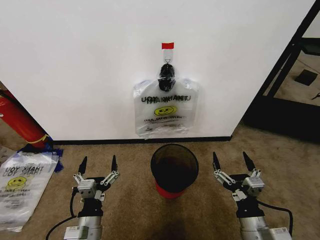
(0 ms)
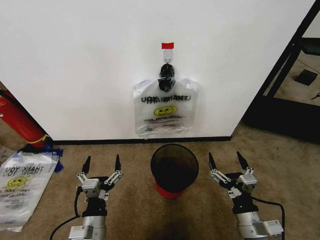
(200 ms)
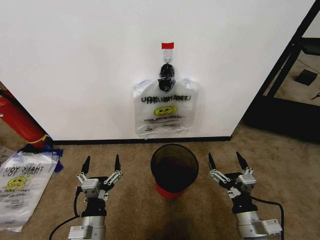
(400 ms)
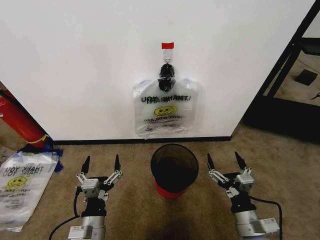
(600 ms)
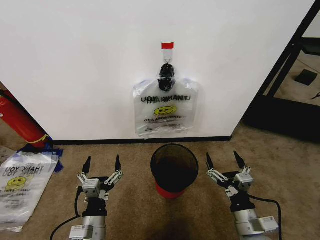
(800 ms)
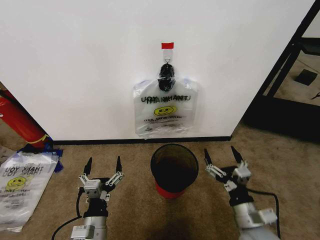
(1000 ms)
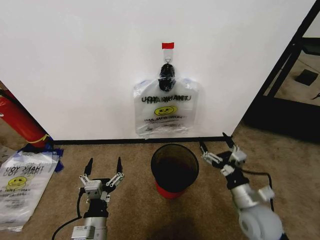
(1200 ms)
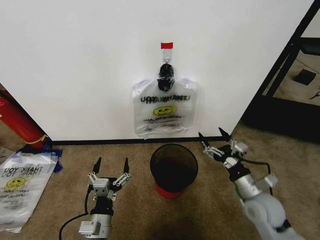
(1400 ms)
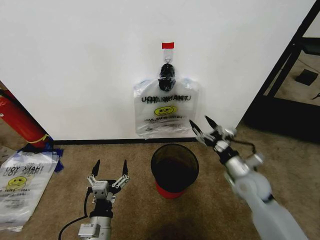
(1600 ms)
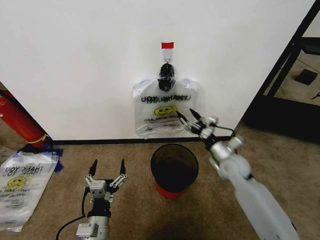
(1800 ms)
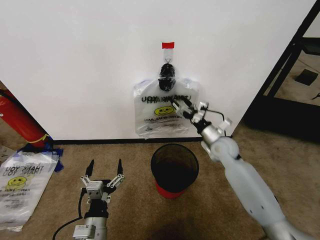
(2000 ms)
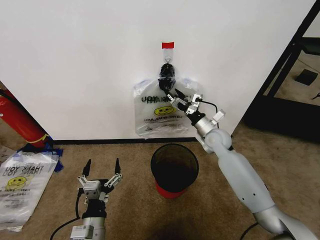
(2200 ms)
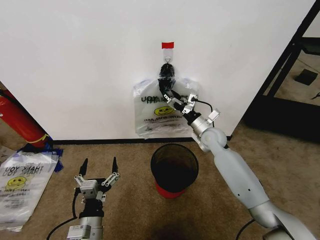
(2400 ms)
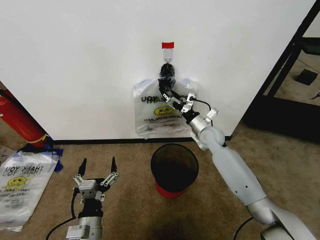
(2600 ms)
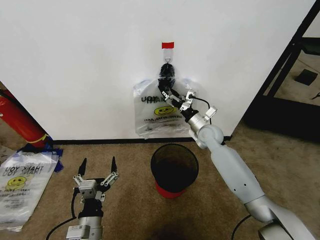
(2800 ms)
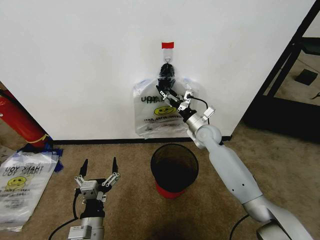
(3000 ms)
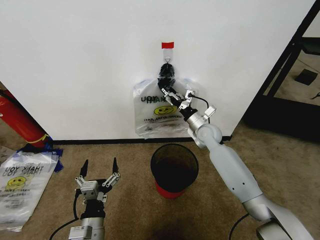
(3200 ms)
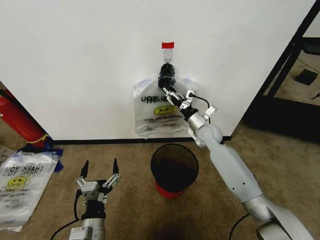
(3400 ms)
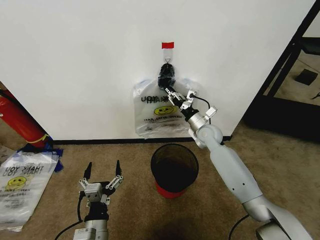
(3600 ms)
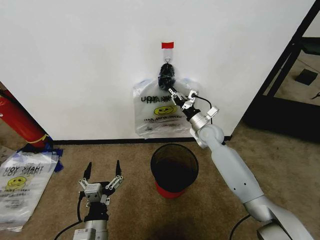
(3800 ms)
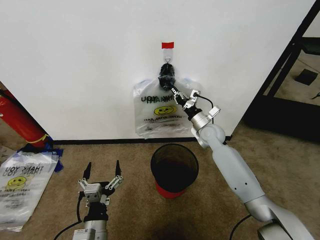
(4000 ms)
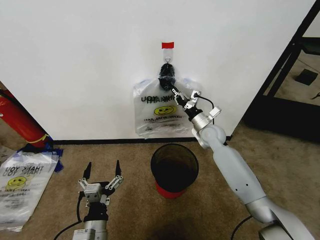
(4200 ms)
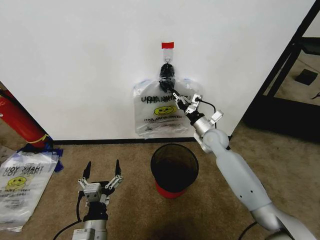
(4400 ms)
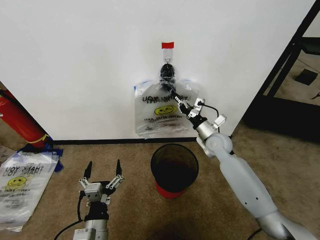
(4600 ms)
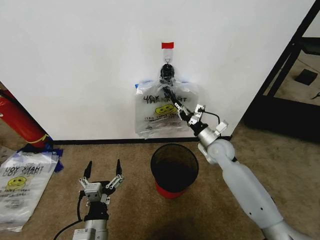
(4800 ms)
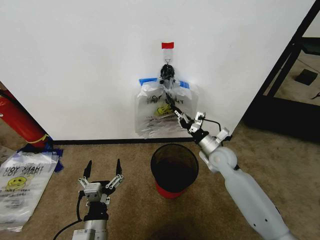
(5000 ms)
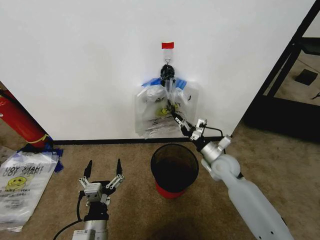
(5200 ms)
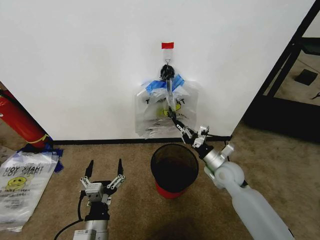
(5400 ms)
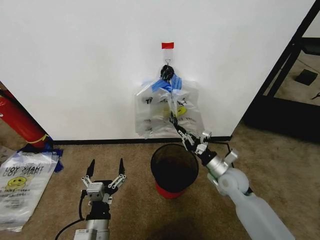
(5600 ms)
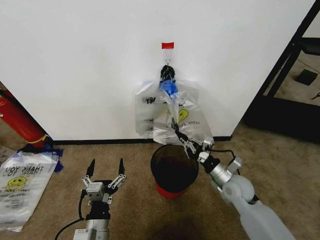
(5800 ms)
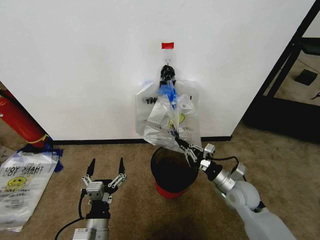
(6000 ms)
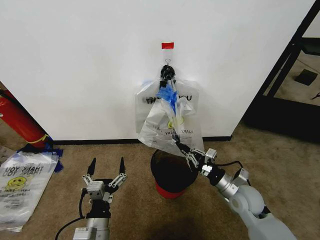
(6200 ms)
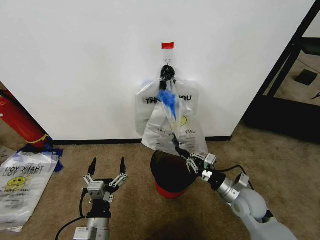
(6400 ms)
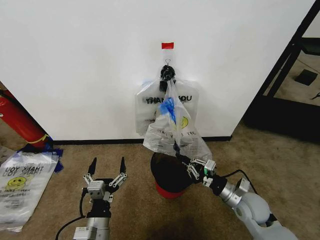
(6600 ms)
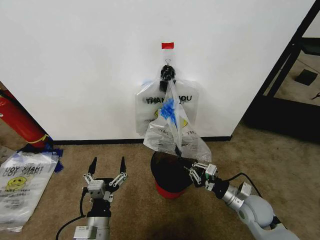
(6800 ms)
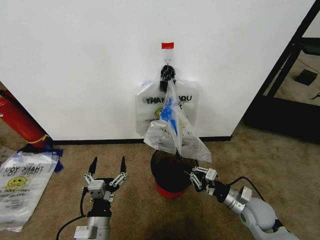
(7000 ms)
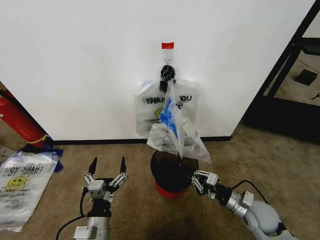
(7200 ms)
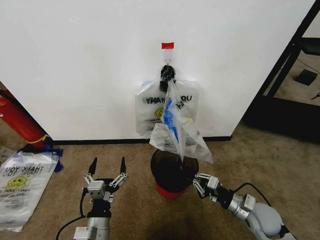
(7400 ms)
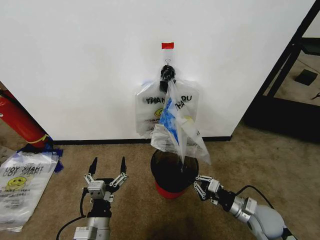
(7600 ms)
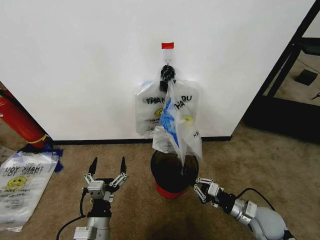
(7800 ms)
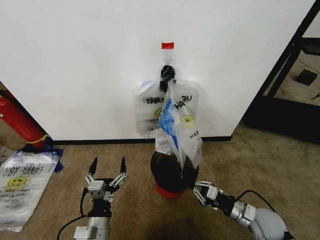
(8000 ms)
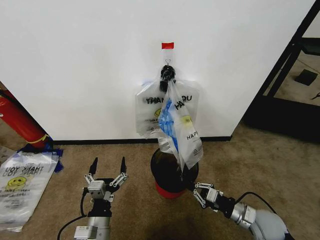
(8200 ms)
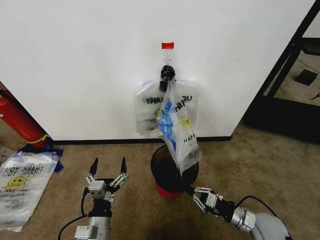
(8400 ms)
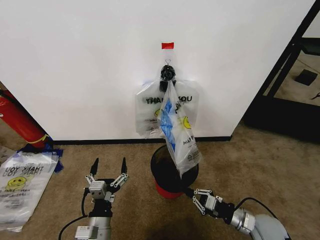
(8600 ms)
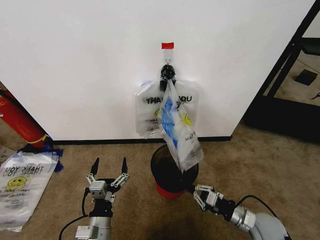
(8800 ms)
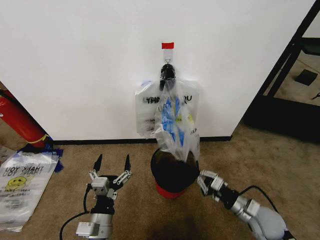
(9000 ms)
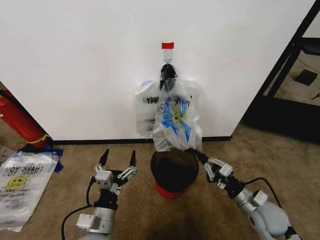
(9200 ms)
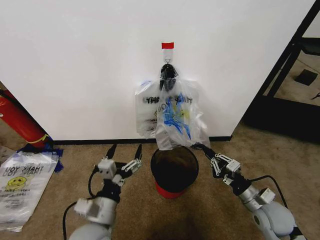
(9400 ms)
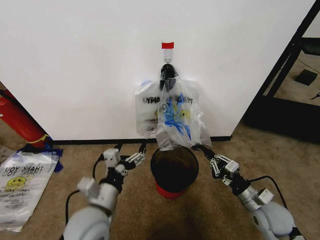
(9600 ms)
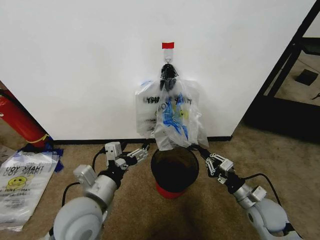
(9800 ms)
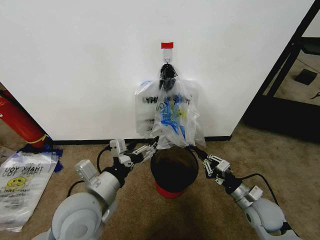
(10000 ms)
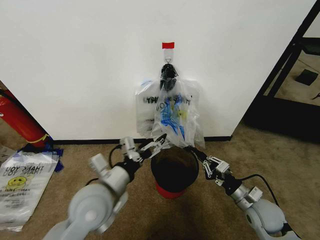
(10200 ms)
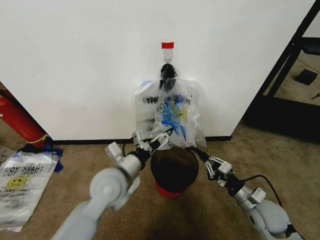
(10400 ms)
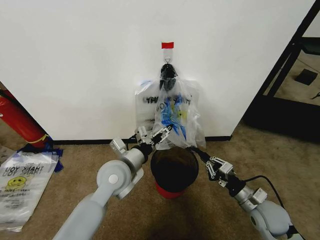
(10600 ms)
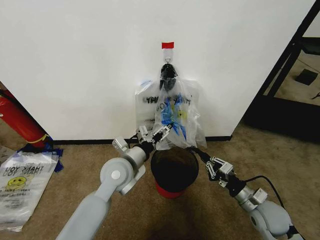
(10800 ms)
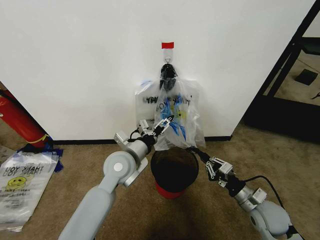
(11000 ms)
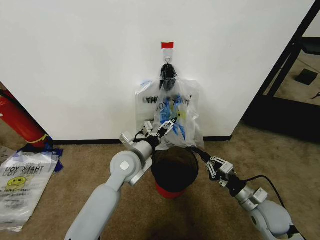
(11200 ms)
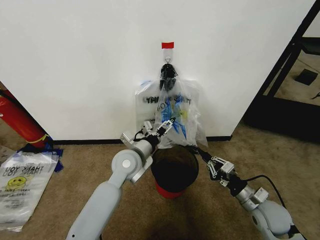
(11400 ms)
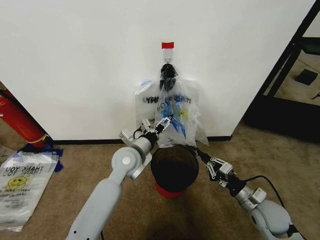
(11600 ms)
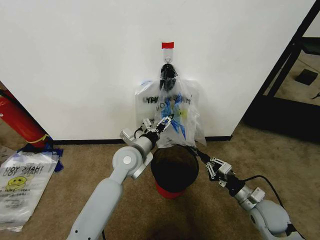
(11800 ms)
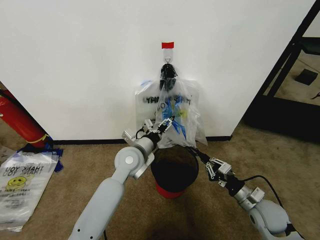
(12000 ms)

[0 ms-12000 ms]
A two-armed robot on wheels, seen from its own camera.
Task of the whole recording: Pick up the garbage bag from the wall and place it over the trash bin.
1600 ms to 3000 ms: The right gripper goes about 20 cm forward and to the left.
3000 ms to 4400 ms: The right gripper closes its fingers.
4400 ms to 6000 ms: The right gripper shifts approximately 20 cm backward.
6000 ms to 7600 ms: The right gripper heads backward and to the right, covering some 10 cm.
7600 ms to 9000 ms: The grippers move only a little.
9000 ms to 10400 ms: The left gripper shifts approximately 20 cm forward and upward.
10400 ms to 12000 ms: The left gripper shifts some 10 cm forward.

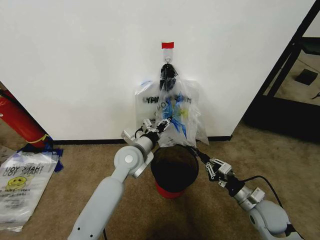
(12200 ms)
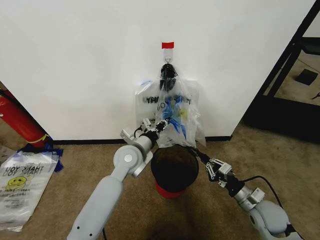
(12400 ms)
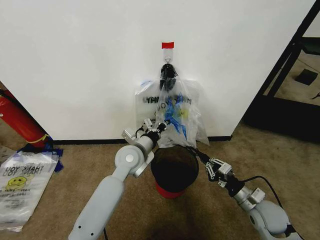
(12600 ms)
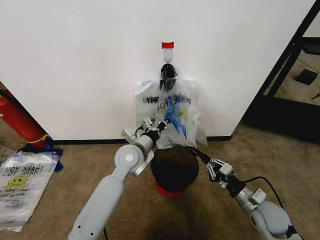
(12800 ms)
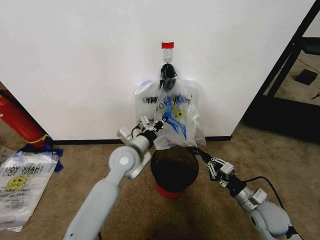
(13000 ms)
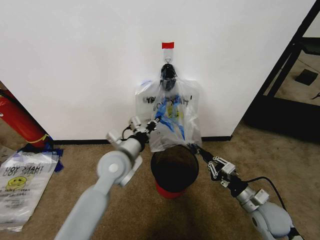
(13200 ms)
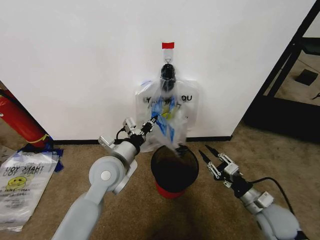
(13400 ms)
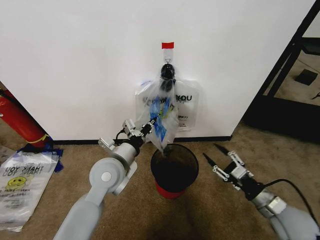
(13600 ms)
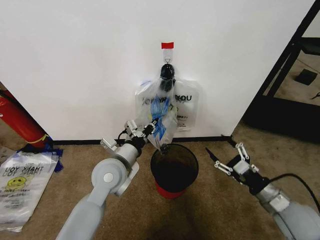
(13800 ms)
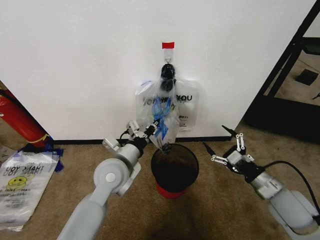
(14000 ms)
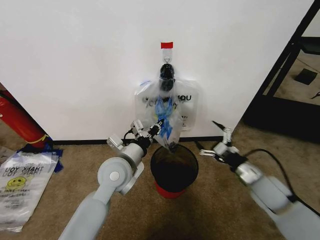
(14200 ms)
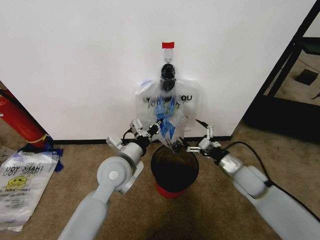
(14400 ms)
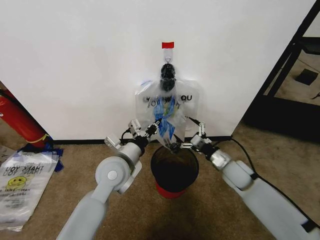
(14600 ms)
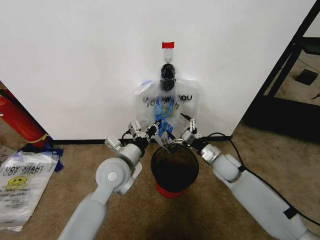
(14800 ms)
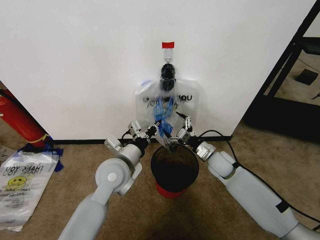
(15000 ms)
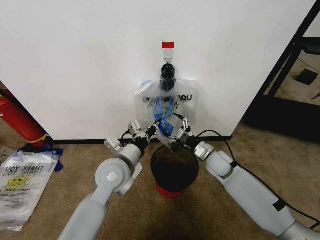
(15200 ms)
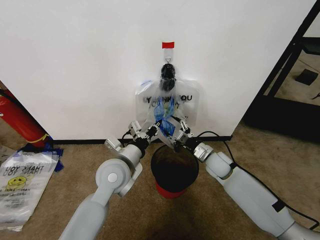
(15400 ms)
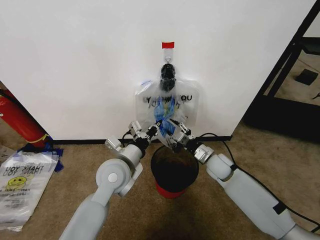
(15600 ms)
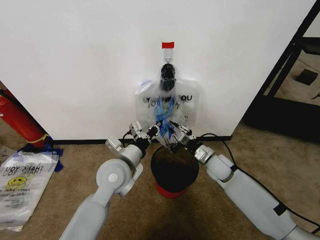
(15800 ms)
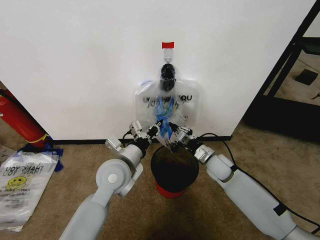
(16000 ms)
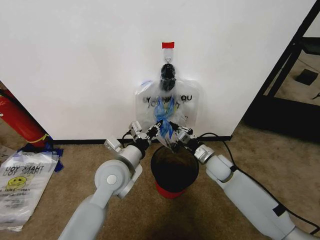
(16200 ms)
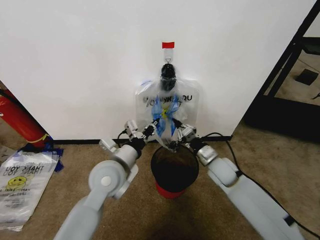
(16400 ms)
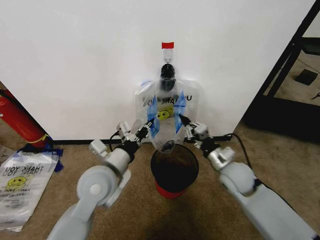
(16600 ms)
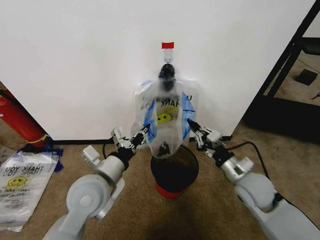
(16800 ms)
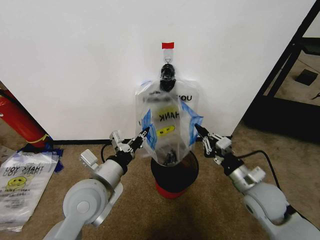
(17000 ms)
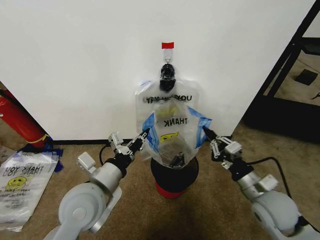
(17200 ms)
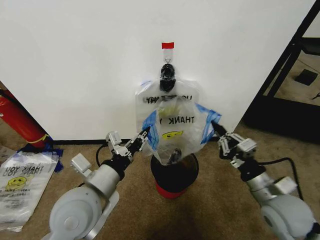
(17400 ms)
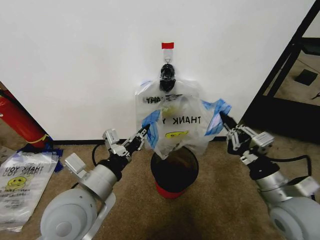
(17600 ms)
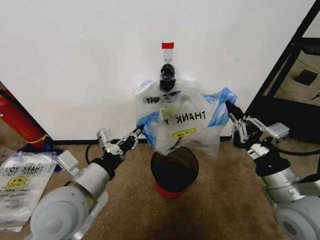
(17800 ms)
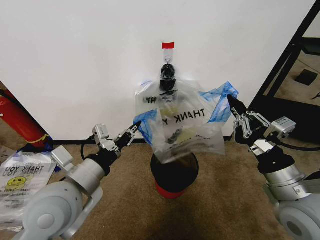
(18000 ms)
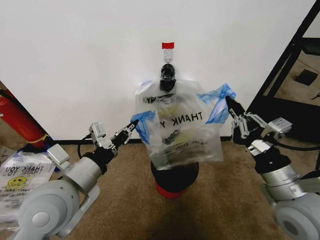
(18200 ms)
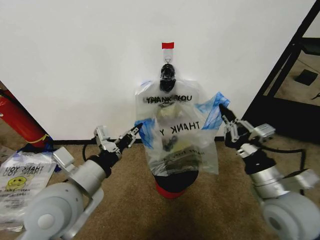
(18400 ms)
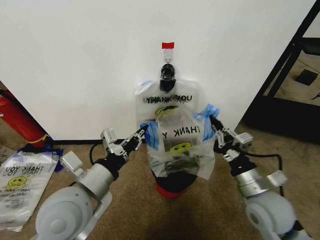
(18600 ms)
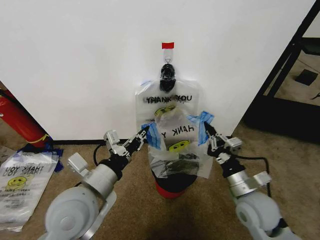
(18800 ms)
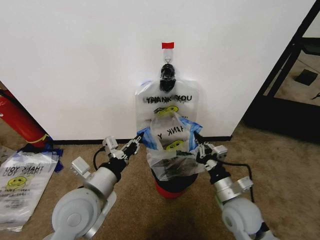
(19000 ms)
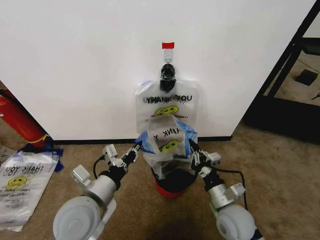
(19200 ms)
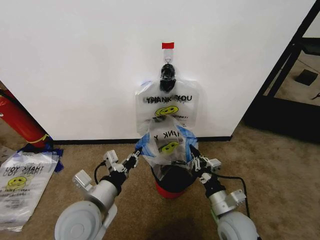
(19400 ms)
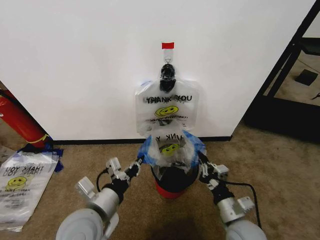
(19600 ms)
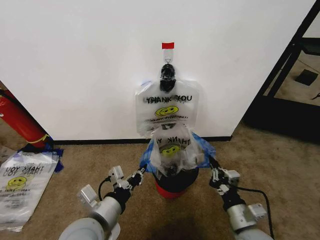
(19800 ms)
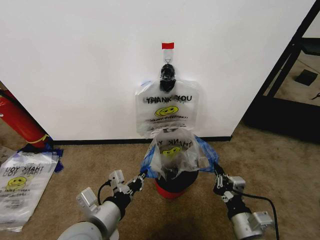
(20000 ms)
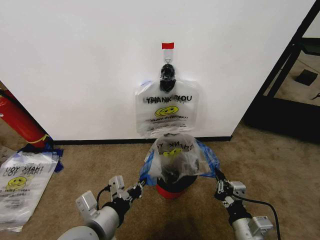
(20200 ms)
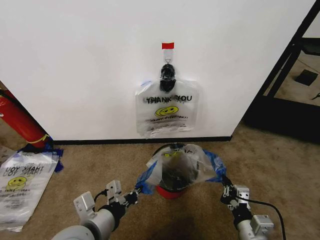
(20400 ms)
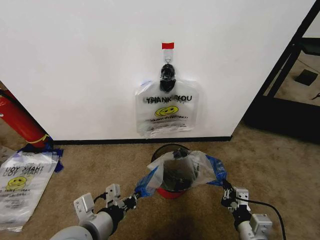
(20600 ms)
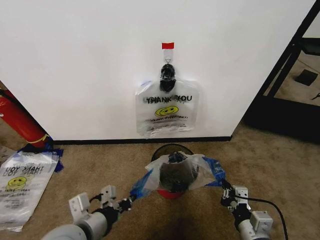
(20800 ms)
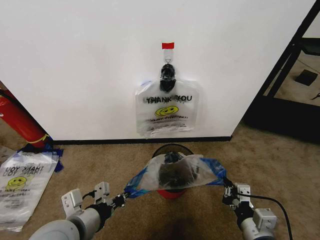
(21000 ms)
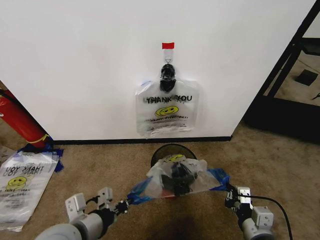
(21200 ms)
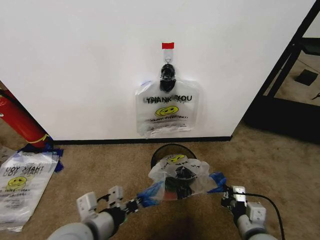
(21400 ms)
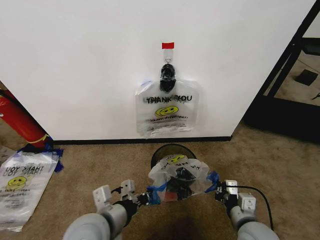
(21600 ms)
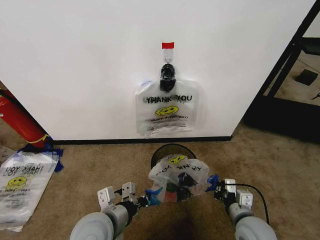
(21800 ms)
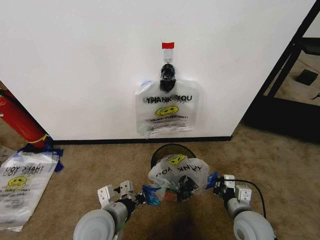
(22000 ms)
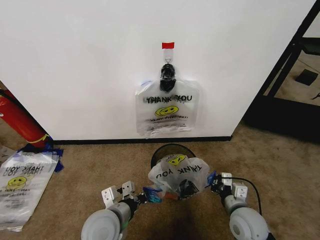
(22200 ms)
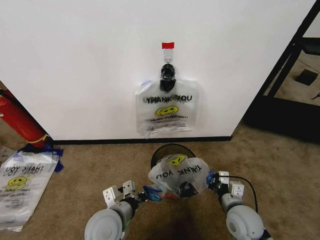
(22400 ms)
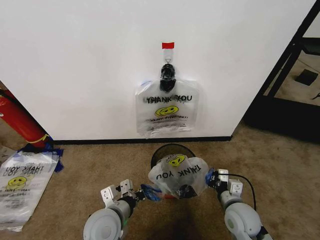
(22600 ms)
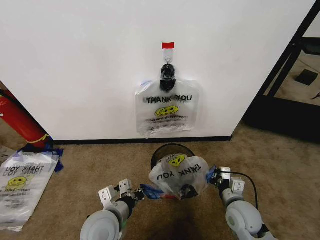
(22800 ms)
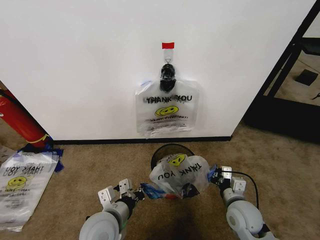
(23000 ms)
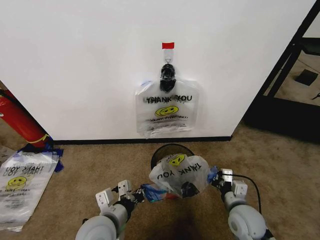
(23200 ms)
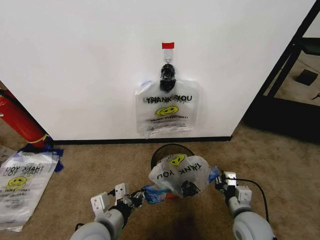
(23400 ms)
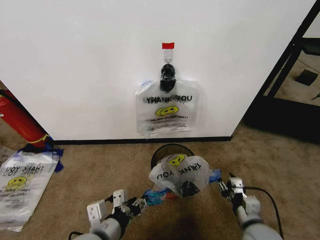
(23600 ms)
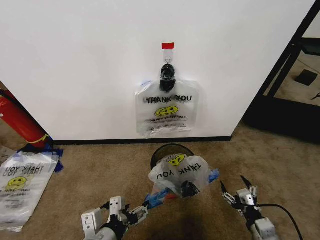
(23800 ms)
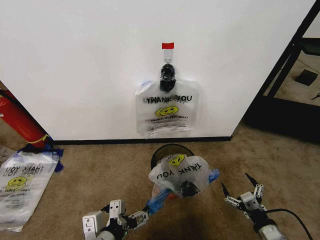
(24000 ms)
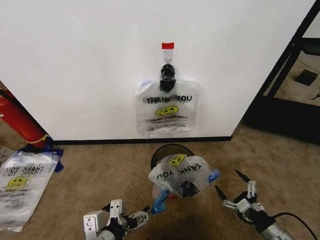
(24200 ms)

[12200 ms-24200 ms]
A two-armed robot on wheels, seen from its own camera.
Task of the whole recording: Pick up the garbage bag from the wall and place it over the trash bin.
12200 ms to 13800 ms: The left gripper moves backward, roughly 5 cm, and closes up, while the right gripper travels upward by about 10 cm, and opens up.
13800 ms to 15200 ms: The right gripper shifts some 25 cm forward and to the left.
15200 ms to 16600 ms: The right gripper travels backward and upward by some 10 cm, and closes its fingers; the left gripper changes place by about 5 cm.
16600 ms to 18200 ms: The left gripper travels backward, upward and to the left by approximately 10 cm. Meanwhile the right gripper goes about 20 cm backward and upward.
18200 ms to 19800 ms: The right gripper heads downward, covering approximately 15 cm; the left gripper is displaced downward by about 10 cm.
21200 ms to 22600 ms: The left gripper moves downward, forward and to the right, about 10 cm; the right gripper is displaced forward and downward by roughly 10 cm.
22600 ms to 24200 ms: The left gripper heads backward and upward, covering approximately 10 cm, and opens its fingers, while the right gripper goes approximately 15 cm to the right and backward, and opens its fingers.
